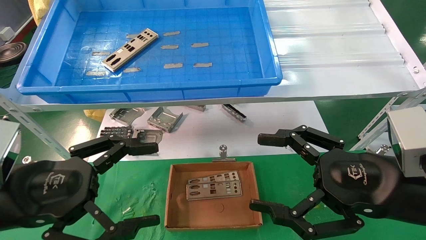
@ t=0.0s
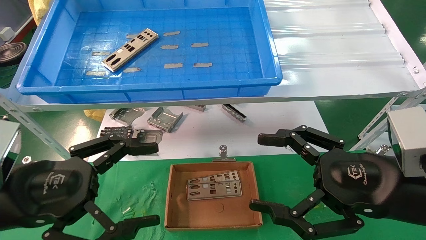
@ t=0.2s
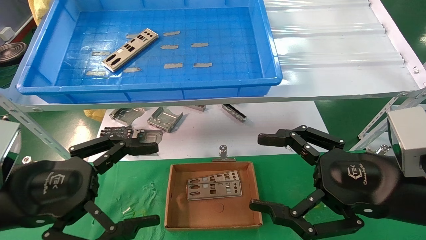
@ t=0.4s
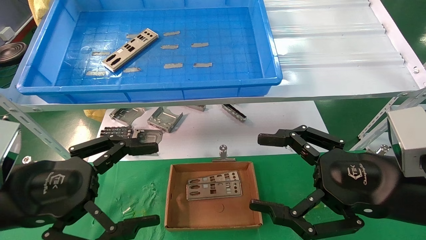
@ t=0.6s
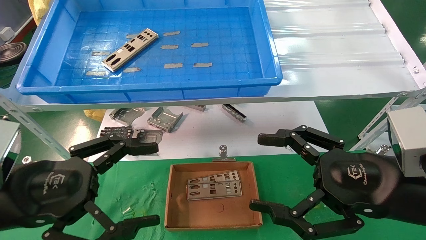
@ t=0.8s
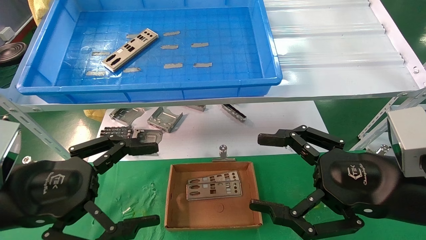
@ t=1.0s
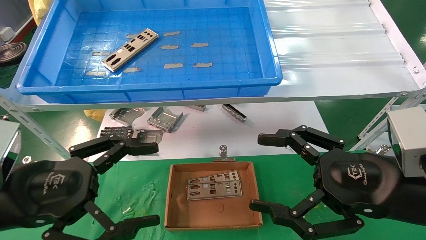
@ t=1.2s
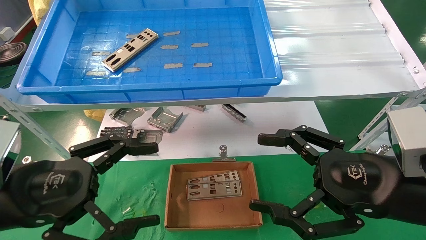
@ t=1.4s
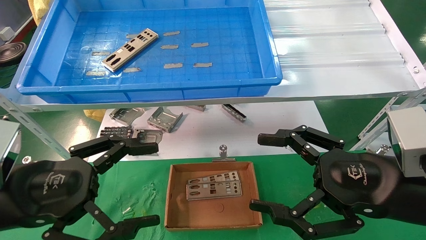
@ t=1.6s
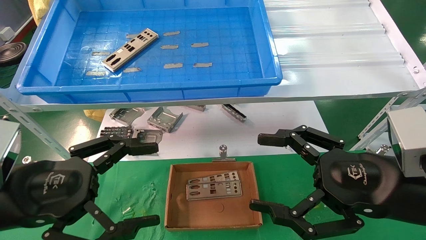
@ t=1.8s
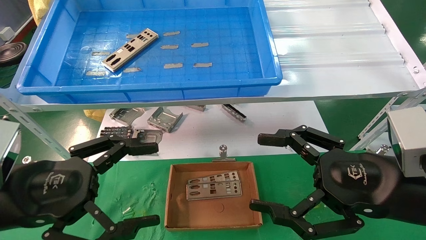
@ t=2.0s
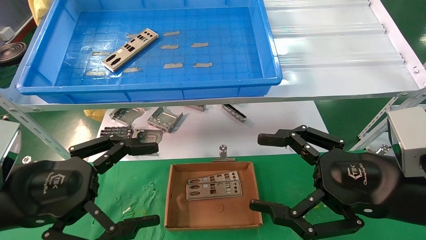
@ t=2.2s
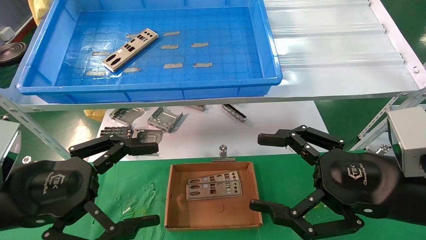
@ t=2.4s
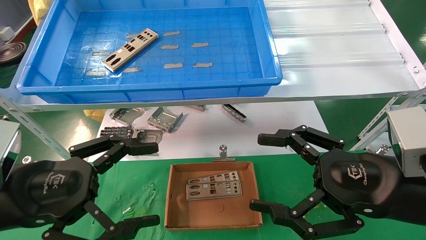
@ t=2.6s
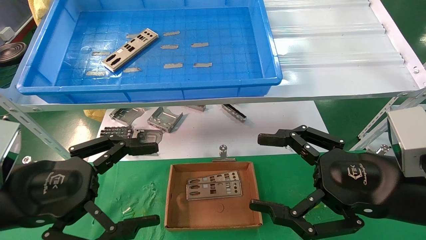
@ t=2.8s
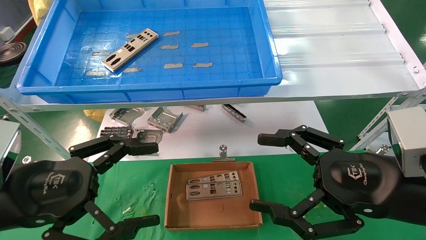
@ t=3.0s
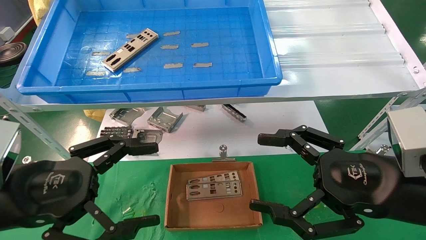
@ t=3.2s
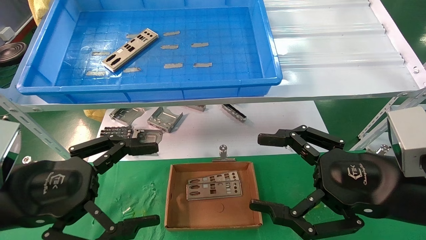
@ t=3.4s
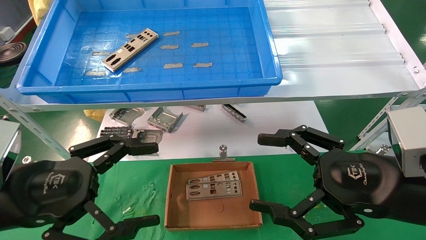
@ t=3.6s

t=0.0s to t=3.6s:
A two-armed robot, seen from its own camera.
Task of the whole recording: pick up the parts on the tray and put them in the cardboard box.
t=0.0s to t=3.6s: The two grippers keep their place.
